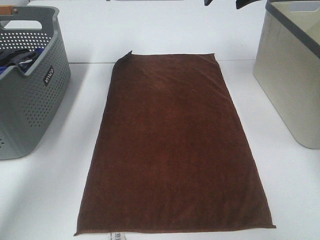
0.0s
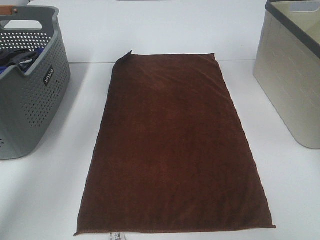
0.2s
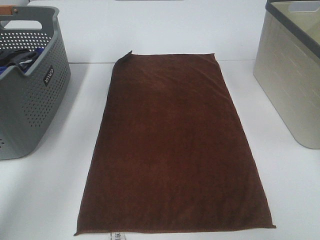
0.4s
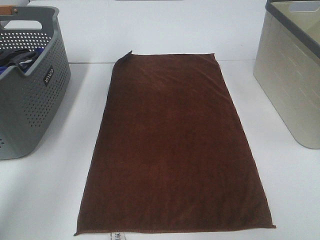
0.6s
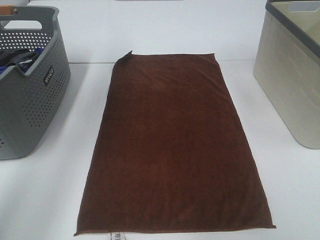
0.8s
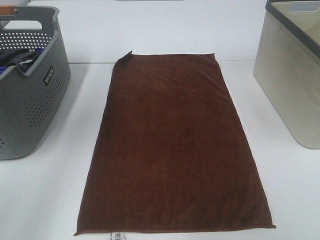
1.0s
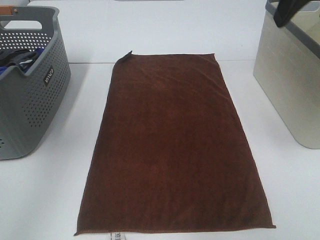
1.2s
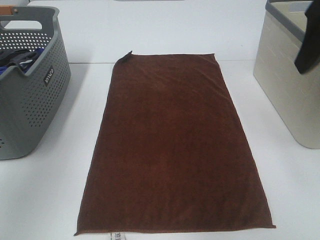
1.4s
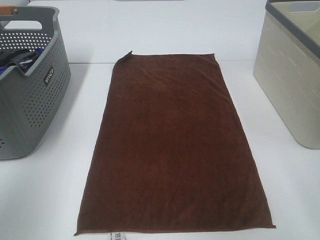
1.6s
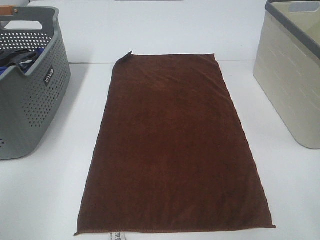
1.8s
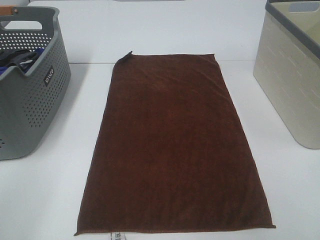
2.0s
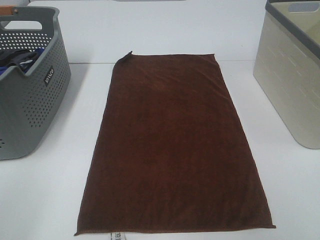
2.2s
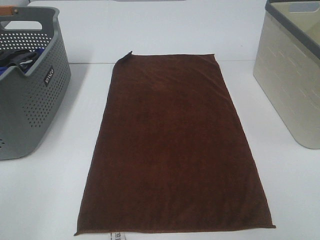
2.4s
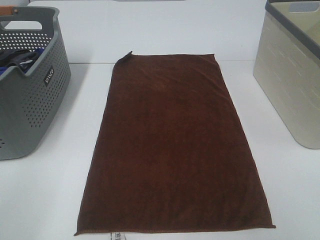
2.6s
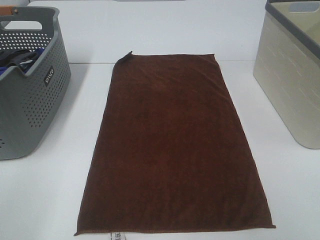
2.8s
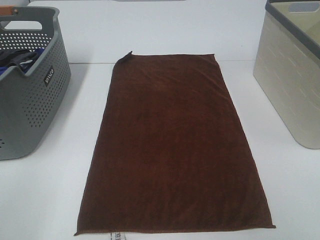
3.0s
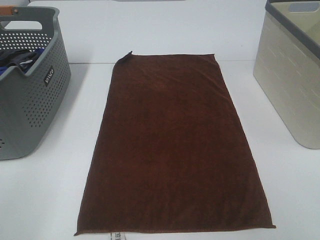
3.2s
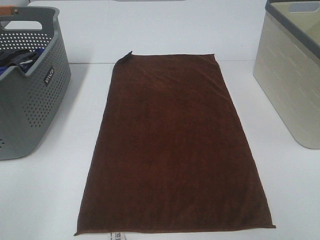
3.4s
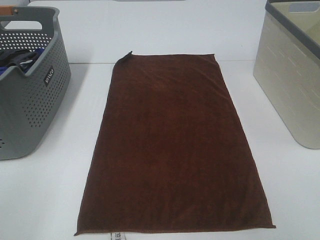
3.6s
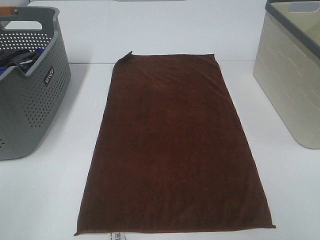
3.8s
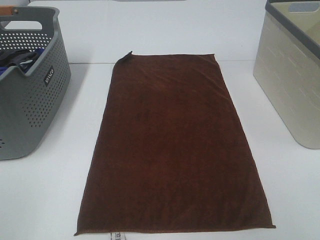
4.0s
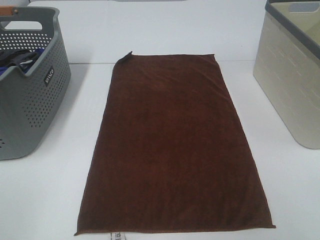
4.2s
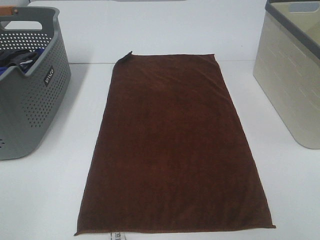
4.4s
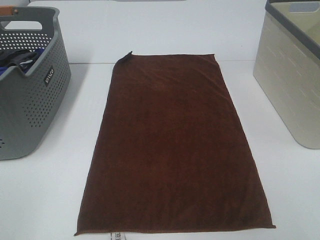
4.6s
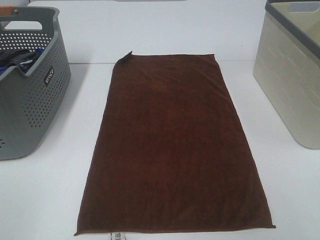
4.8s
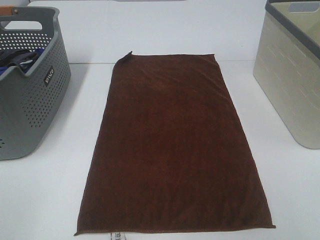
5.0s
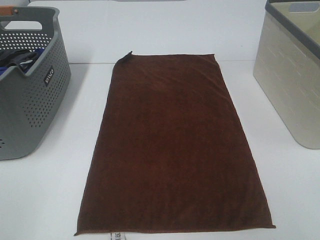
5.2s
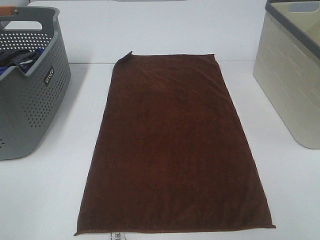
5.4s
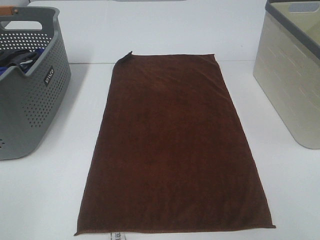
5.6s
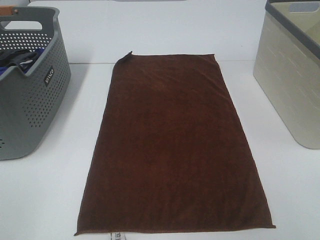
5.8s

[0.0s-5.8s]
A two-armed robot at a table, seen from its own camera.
Task of the whole recording: Remove the towel and place it.
0.0s to 1.4s: The two grippers go about 30 cm backward.
1.4s to 2.8s: The left gripper goes about 20 cm backward and downward; the right gripper travels backward by roughly 20 cm.
4.4s to 5.8s: Both grippers stay put.

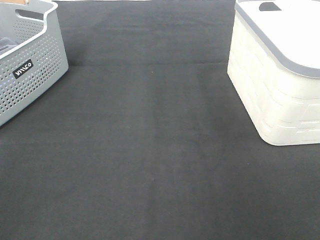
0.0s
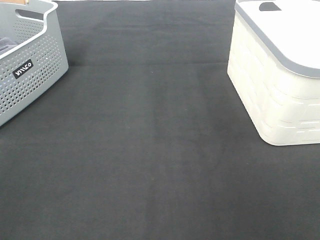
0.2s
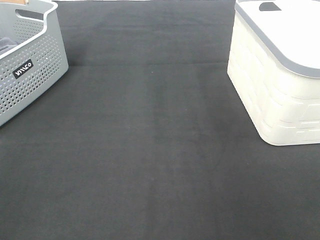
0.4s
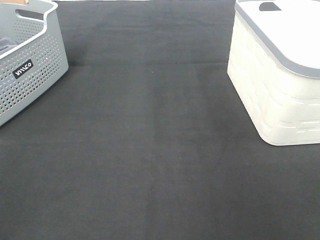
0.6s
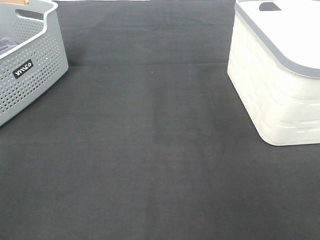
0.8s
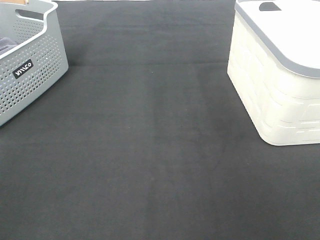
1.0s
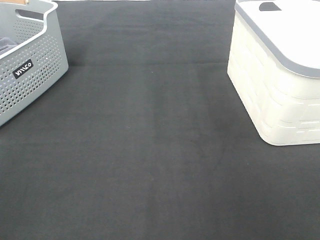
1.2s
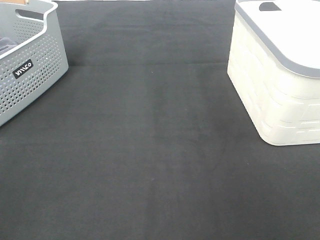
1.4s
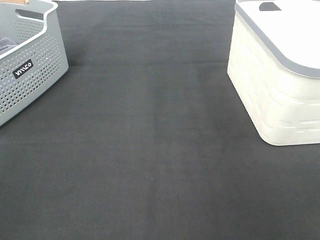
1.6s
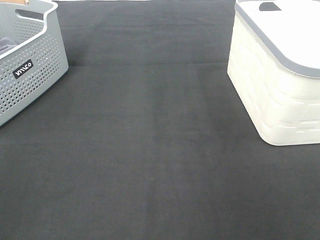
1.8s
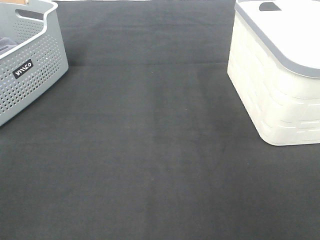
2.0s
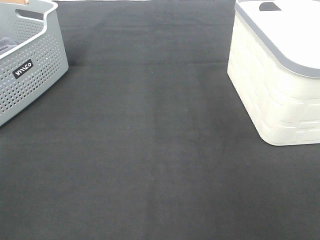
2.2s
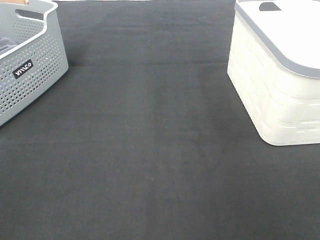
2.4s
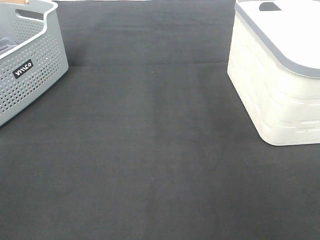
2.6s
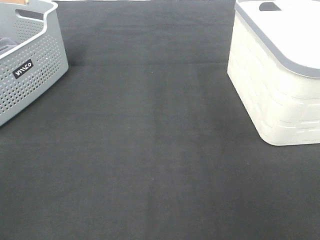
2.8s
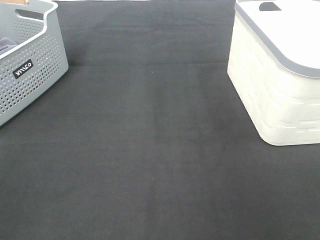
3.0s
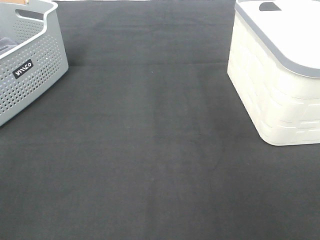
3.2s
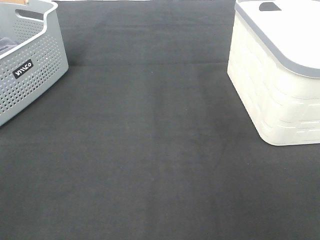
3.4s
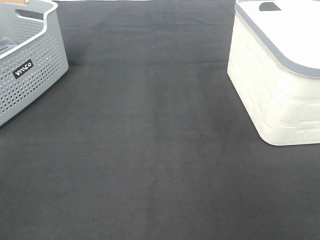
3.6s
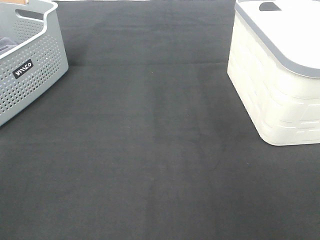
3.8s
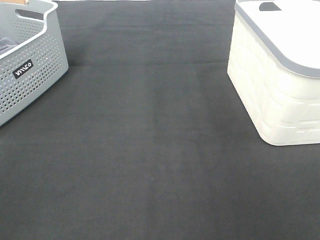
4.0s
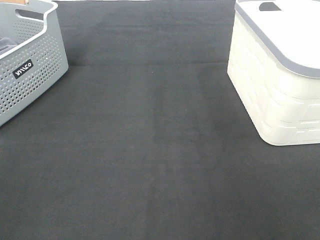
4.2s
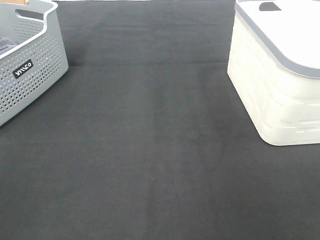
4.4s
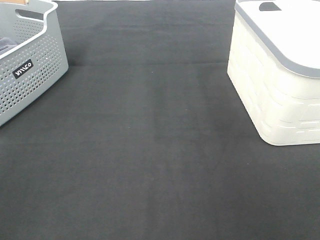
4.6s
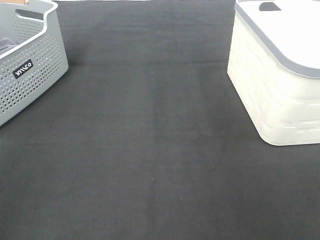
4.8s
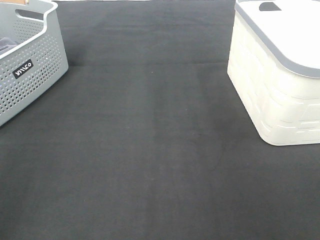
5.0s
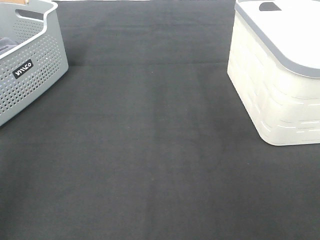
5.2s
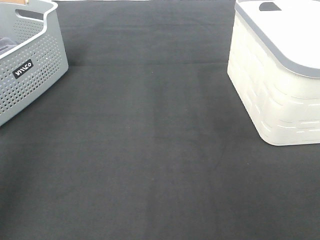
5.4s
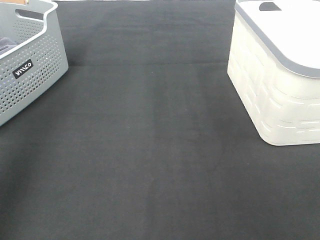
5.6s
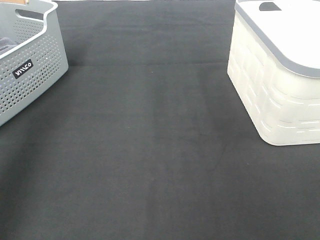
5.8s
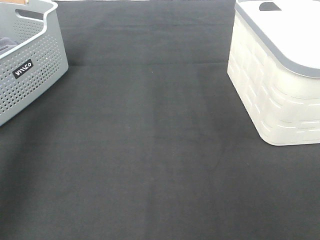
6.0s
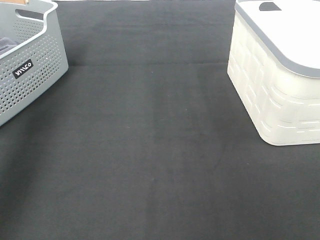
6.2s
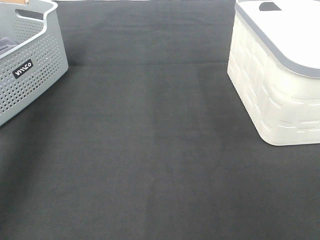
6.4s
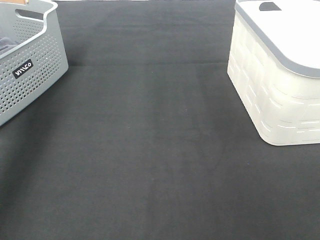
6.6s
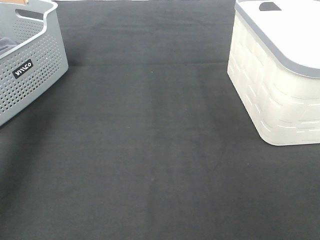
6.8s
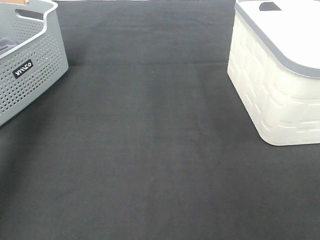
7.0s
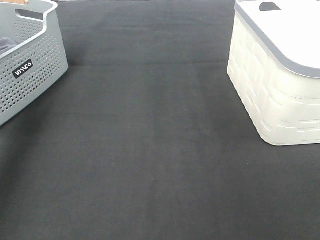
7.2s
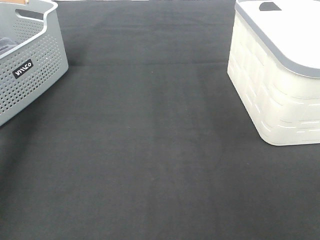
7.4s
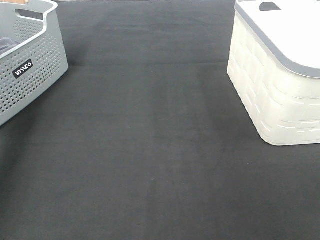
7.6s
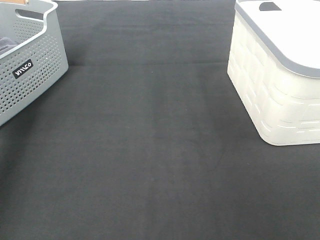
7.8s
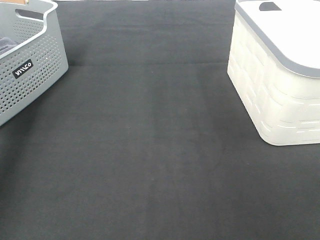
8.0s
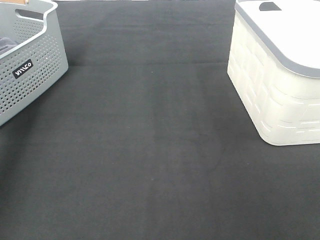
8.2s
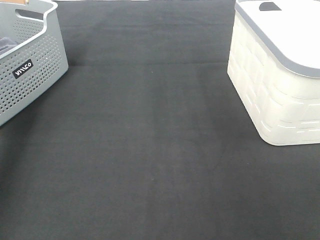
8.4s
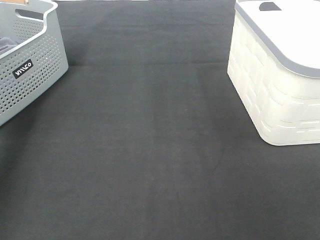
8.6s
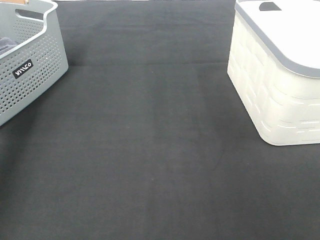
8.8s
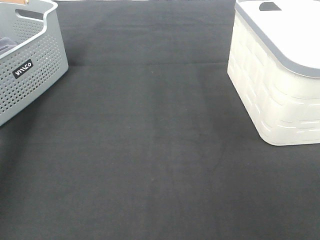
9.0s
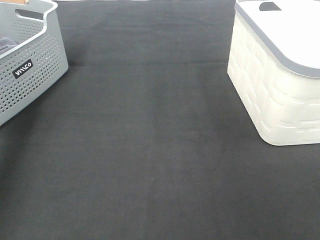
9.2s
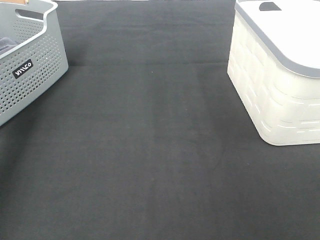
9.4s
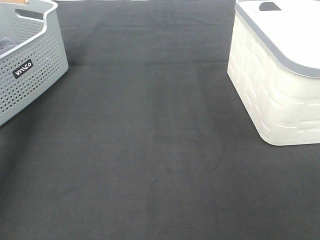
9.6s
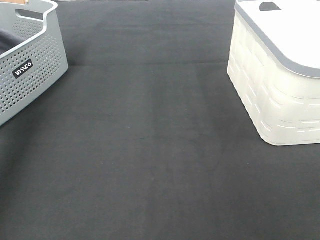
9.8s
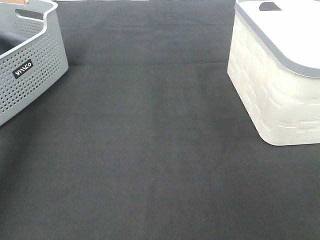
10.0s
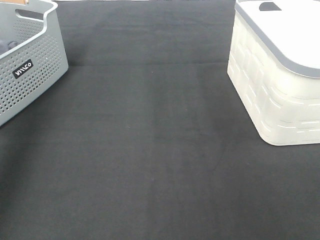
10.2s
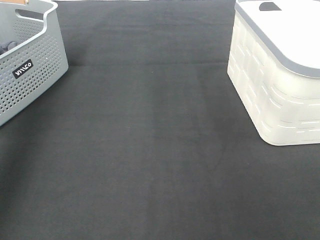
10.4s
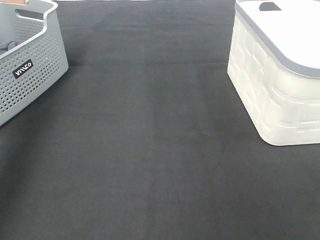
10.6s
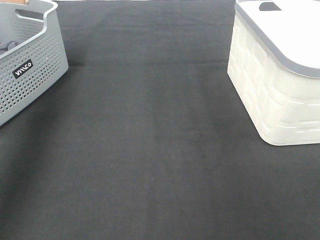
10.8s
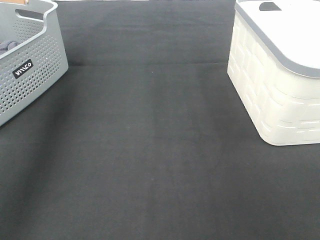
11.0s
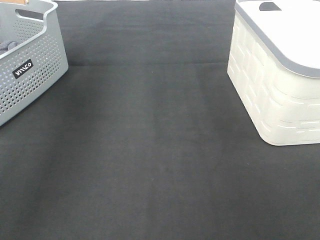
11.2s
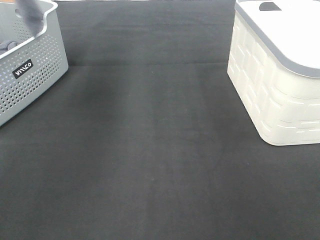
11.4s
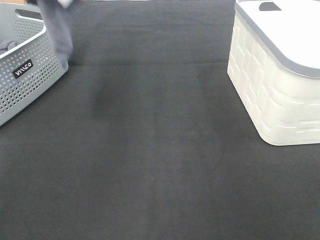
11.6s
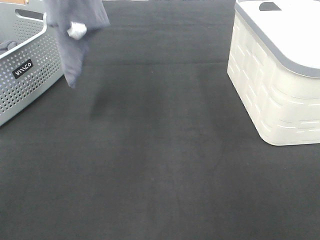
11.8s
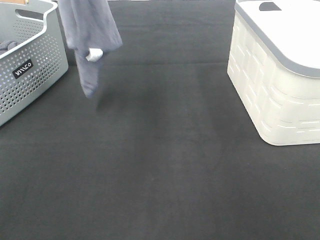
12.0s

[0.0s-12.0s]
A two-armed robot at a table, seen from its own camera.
Task of the whole recording: Remove the towel and place it.
0.0s to 4.4s: The two grippers keep their place.
4.4s to 6.0s: The left gripper goes roughly 30 cm forward.
10.4s to 12.0s: The left gripper goes some 25 cm to the right.

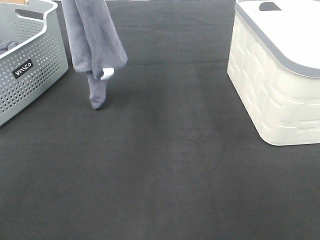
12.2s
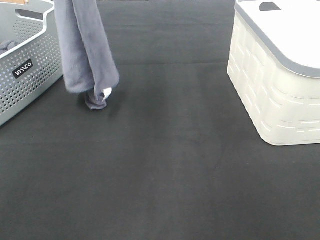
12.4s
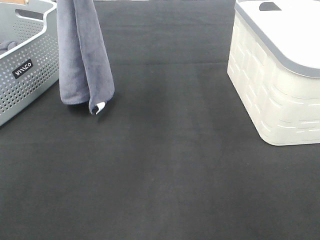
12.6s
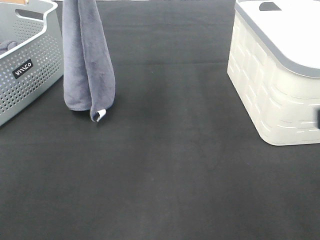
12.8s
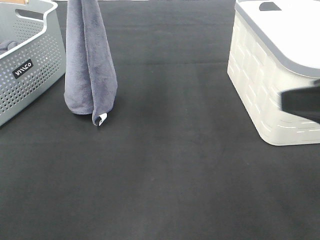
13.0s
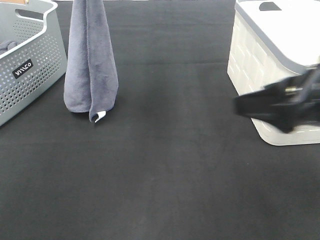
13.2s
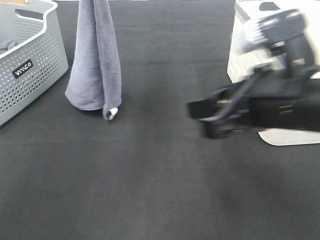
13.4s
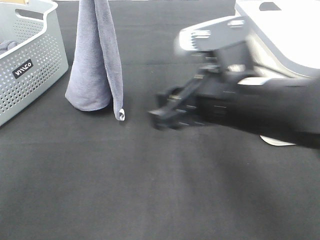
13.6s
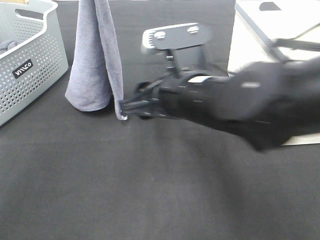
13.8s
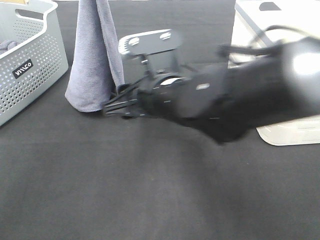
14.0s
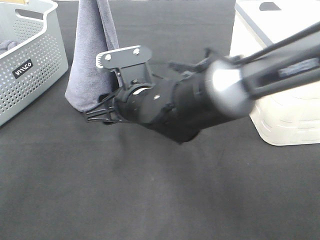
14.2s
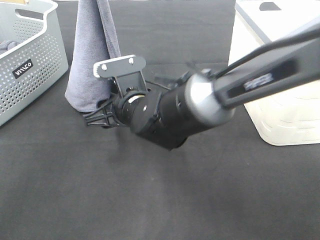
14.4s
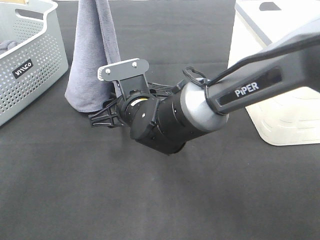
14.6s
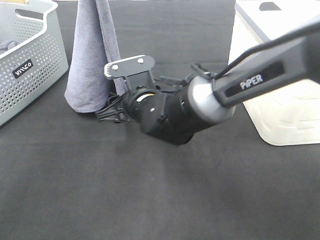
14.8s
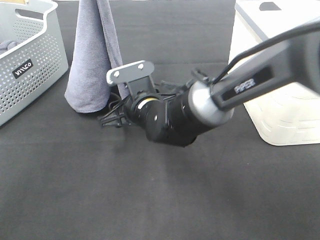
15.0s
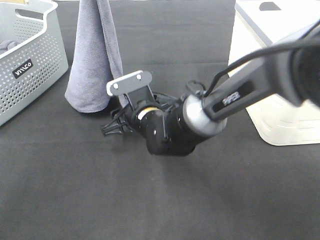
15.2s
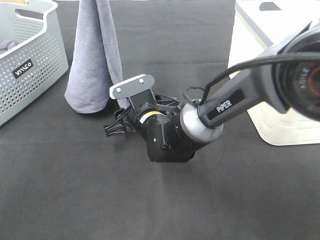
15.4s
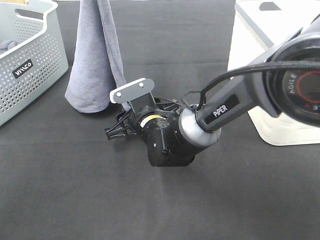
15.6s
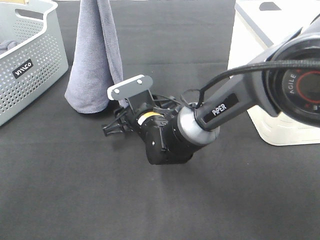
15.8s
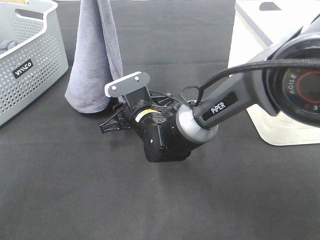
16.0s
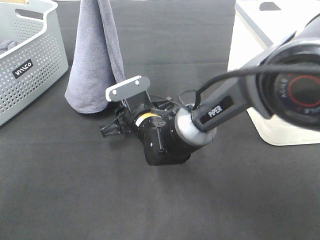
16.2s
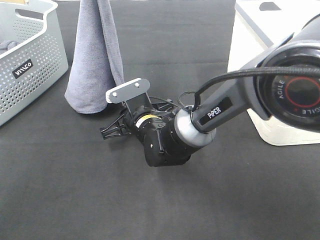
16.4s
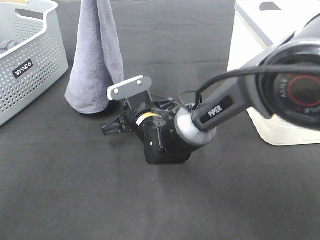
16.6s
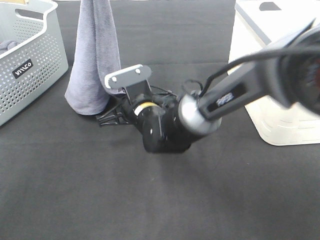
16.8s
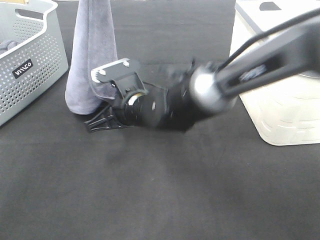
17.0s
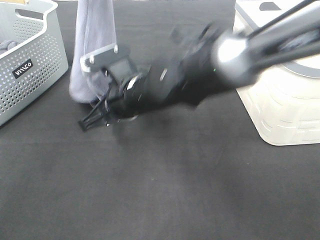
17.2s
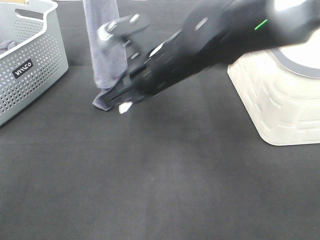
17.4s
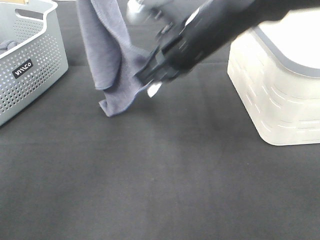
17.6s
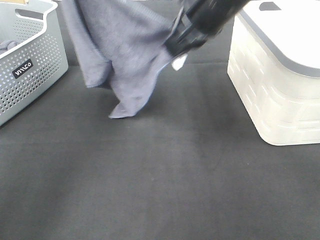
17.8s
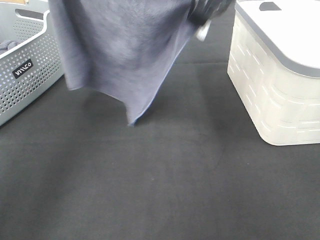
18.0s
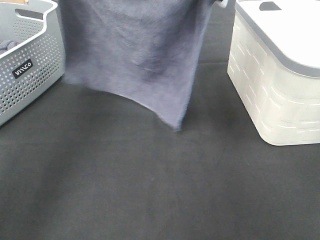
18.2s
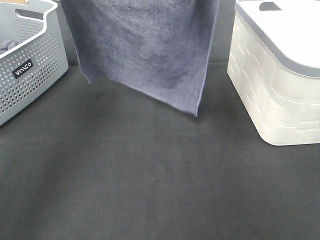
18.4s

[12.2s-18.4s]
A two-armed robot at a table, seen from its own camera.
Task of the whole recording: Remove the towel and place it.
Step, 12.2s to 14.6s: Right hand: grab a corner of the grey towel and straighten it.
Step, 14.8s to 17.6s: Left hand: spread the grey towel flat on the table.
Step, 14.8s to 17.6s: Right hand: spread the grey towel flat on the table.
12.2s to 13.8s: The right gripper goes approximately 35 cm forward and to the left. Meanwhile the left gripper moves downward, about 5 cm.
13.8s to 15.4s: The right gripper heads downward, forward and to the left, covering some 15 cm.
15.4s to 16.8s: The right gripper closes.
16.8s to 18.4s: The left gripper is displaced to the left by about 10 cm, while the right gripper moves upward and to the right, roughly 35 cm.
